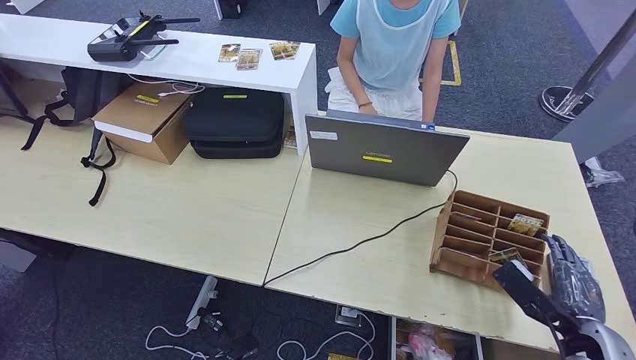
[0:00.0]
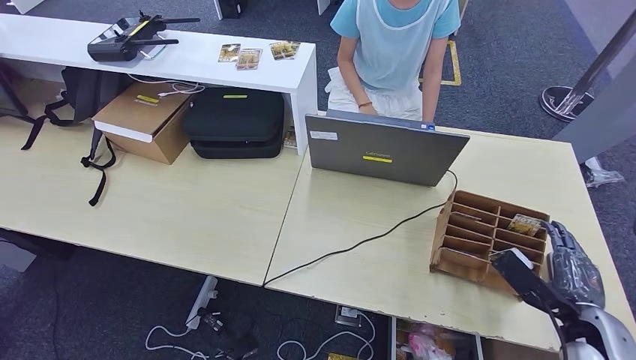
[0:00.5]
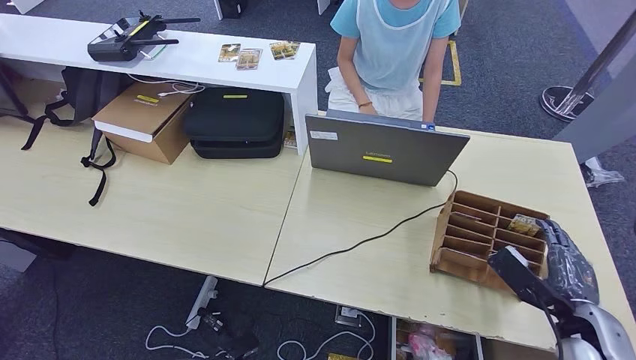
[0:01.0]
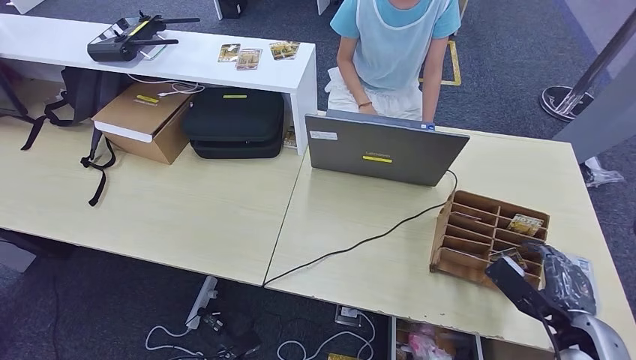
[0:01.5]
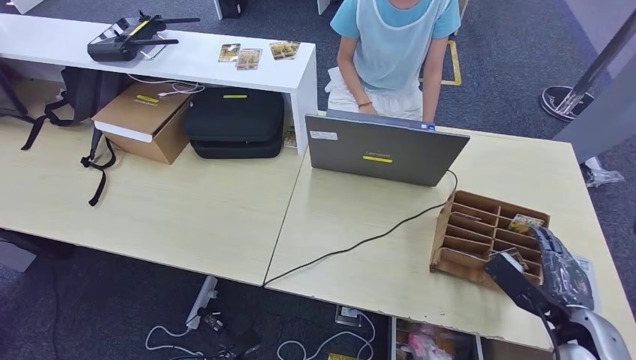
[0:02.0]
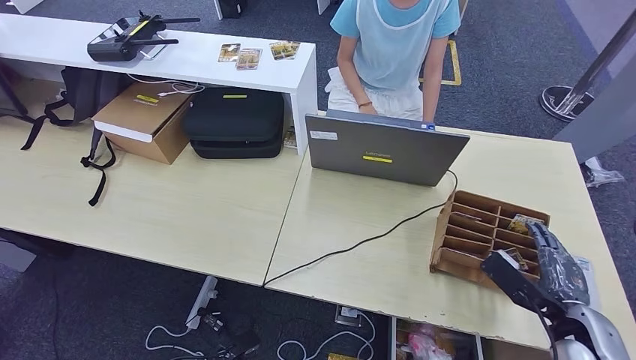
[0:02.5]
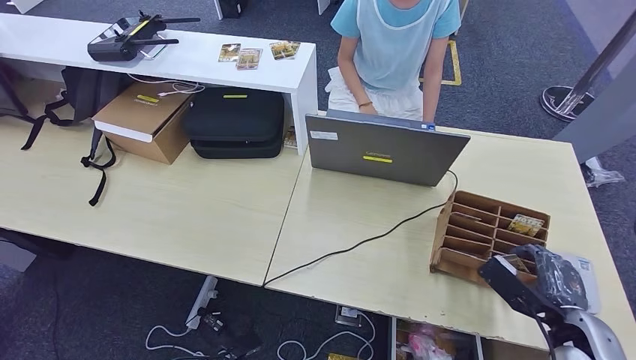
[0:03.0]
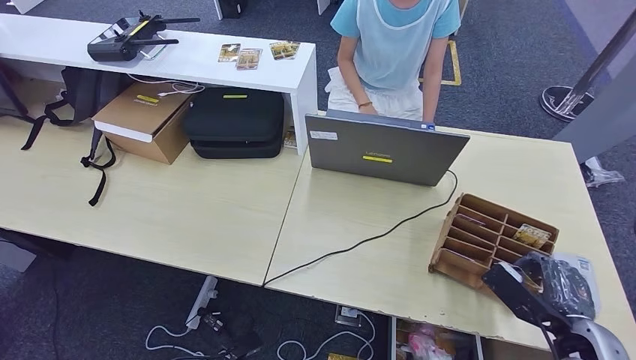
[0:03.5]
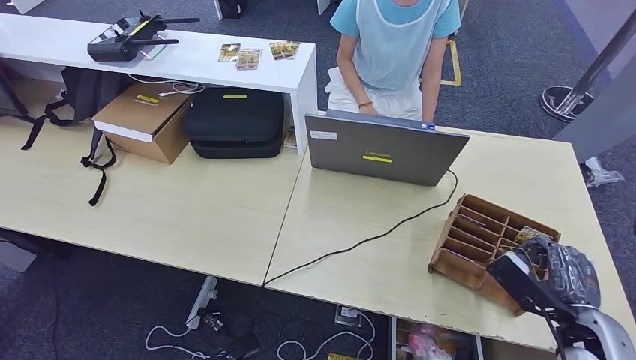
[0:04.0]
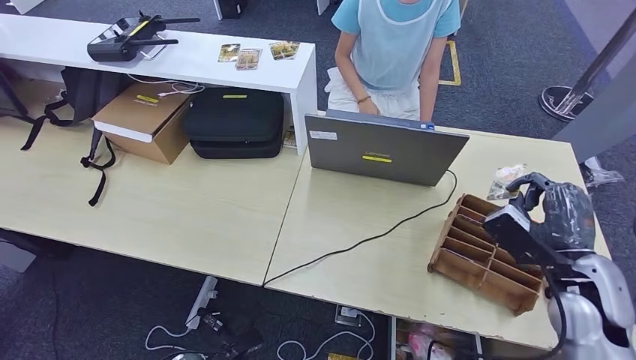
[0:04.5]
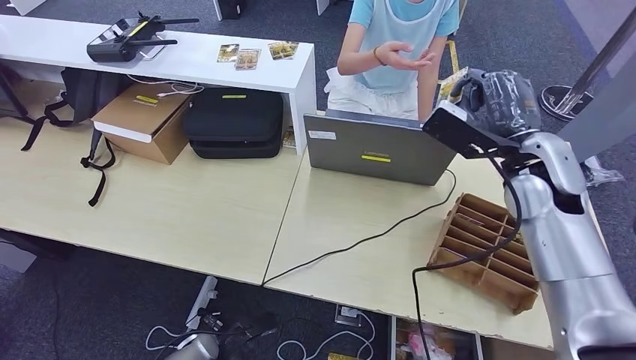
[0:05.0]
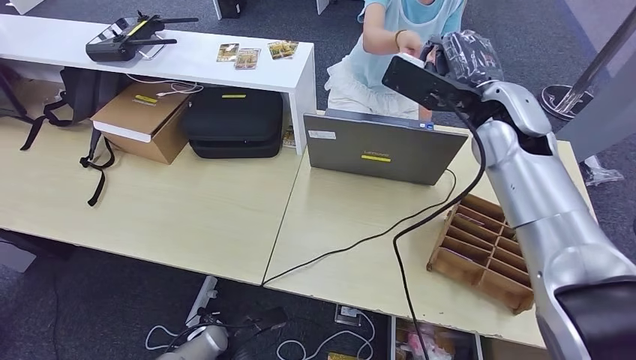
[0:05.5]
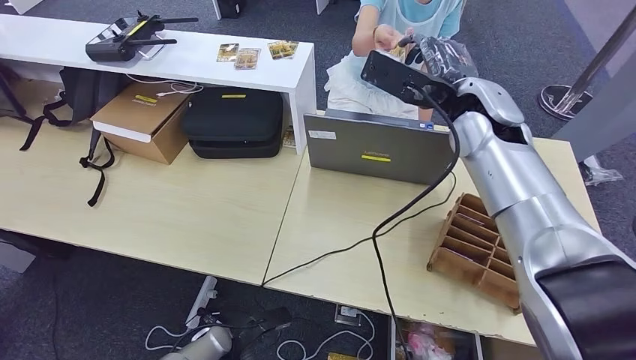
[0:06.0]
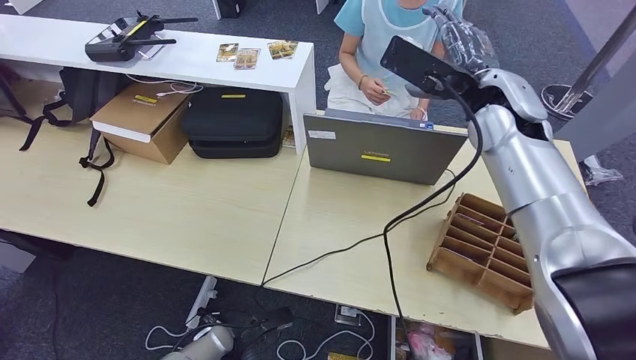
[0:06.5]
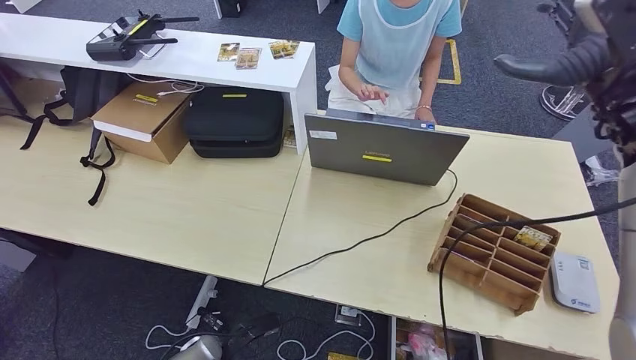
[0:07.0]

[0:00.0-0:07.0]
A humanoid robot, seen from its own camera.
Step, 0:00.0 to 0:04.5: Pick up the room key from the key card box.
Step, 0:05.0 to 0:07.0: Hand the room key to the person.
0:00.0 to 0:03.5: The hands make only small movements.
0:03.5 to 0:05.0: The left hand ends up approximately 5 cm from where it was. The right hand heads upward, forward and to the left, covering about 30 cm.
0:05.0 to 0:07.0: The right hand heads upward and to the right, covering roughly 10 cm.
